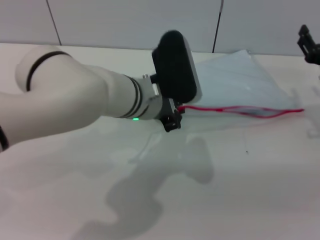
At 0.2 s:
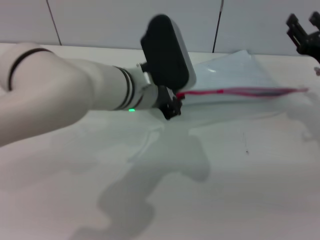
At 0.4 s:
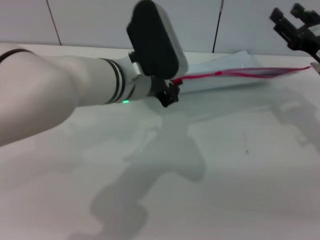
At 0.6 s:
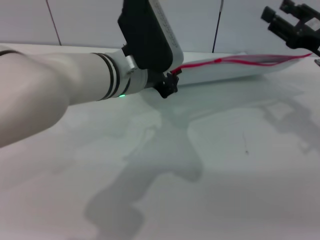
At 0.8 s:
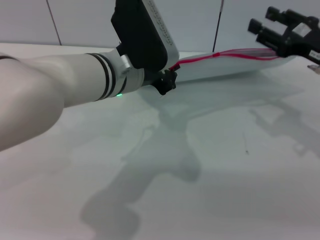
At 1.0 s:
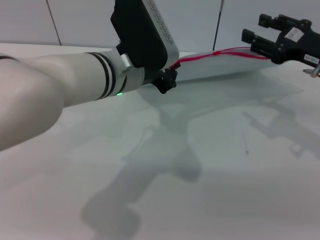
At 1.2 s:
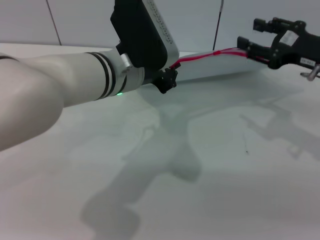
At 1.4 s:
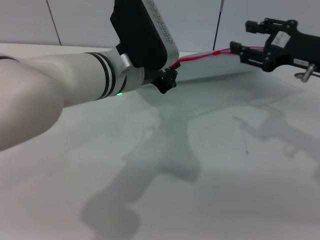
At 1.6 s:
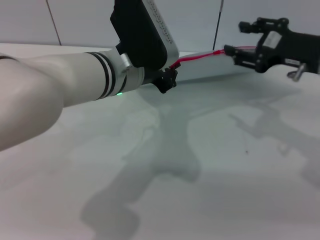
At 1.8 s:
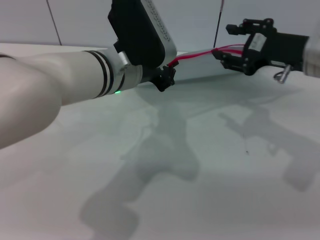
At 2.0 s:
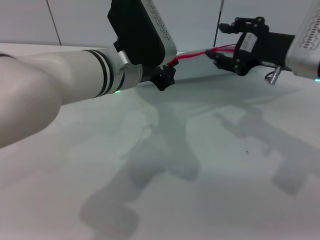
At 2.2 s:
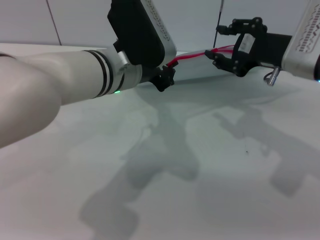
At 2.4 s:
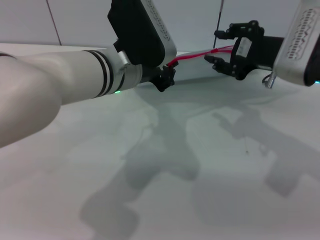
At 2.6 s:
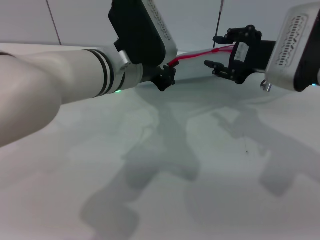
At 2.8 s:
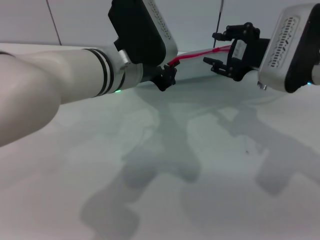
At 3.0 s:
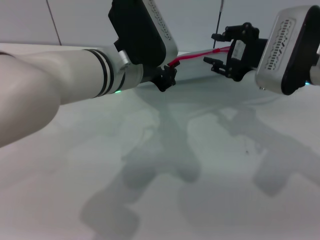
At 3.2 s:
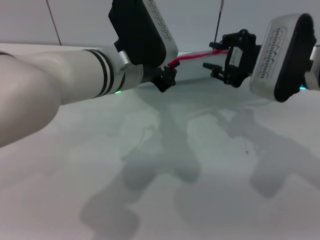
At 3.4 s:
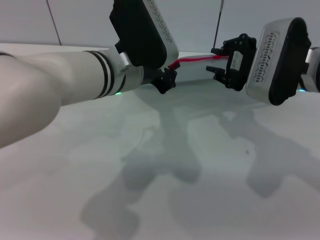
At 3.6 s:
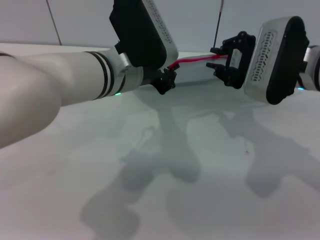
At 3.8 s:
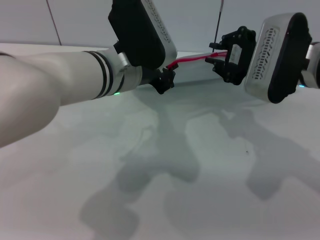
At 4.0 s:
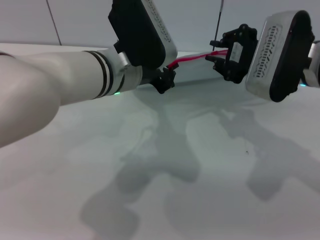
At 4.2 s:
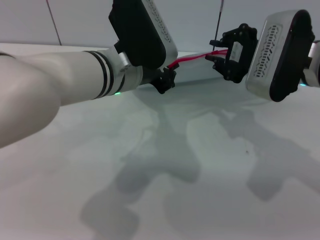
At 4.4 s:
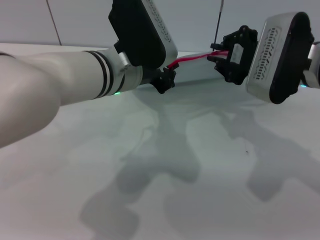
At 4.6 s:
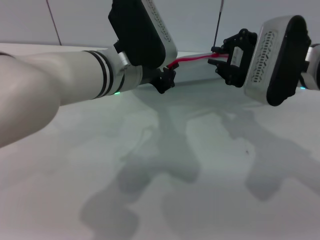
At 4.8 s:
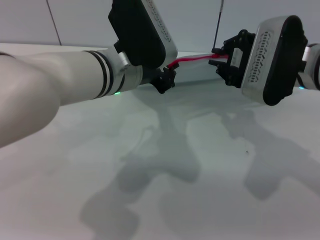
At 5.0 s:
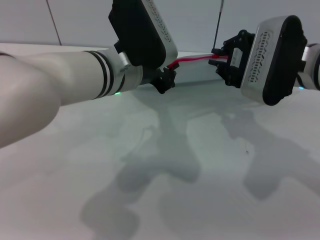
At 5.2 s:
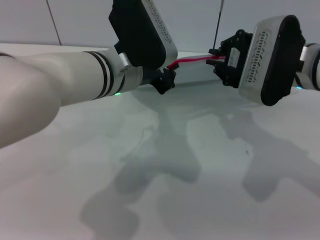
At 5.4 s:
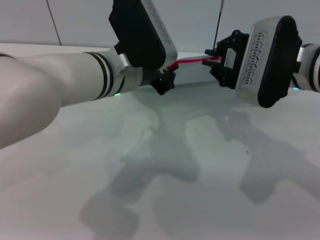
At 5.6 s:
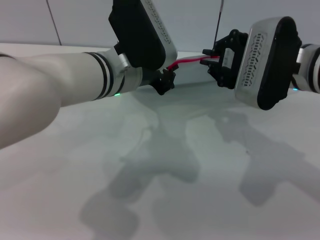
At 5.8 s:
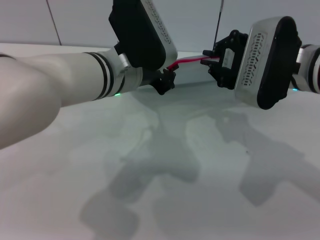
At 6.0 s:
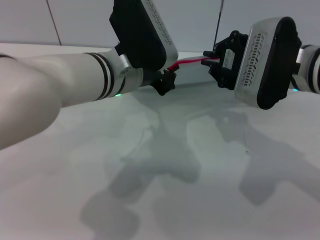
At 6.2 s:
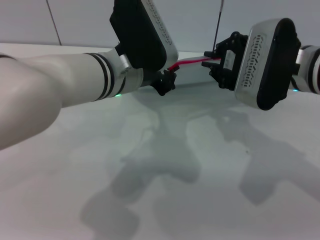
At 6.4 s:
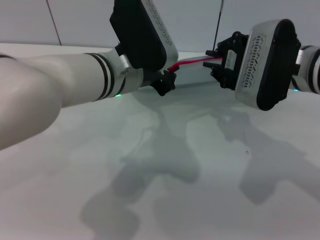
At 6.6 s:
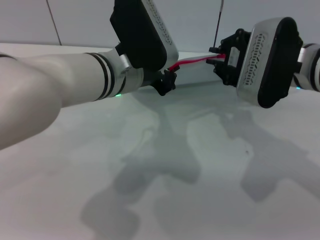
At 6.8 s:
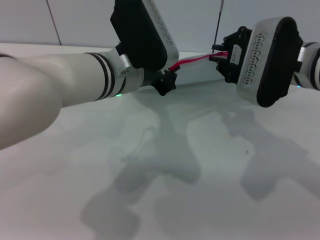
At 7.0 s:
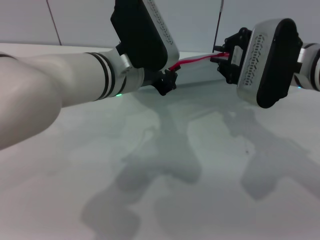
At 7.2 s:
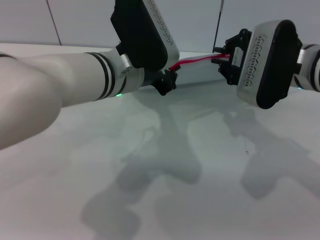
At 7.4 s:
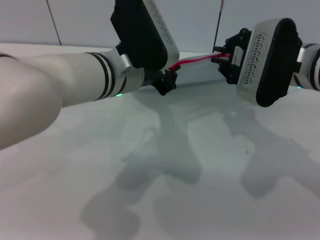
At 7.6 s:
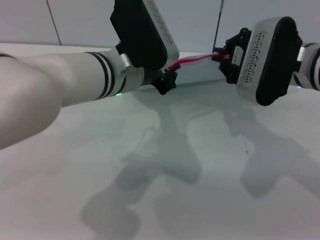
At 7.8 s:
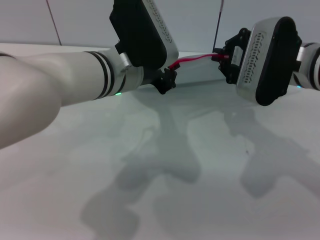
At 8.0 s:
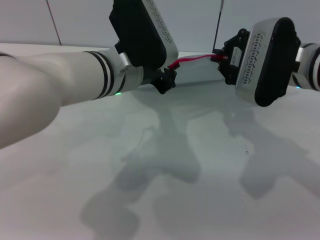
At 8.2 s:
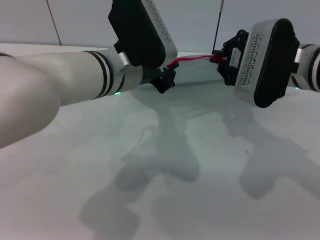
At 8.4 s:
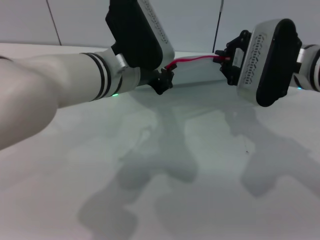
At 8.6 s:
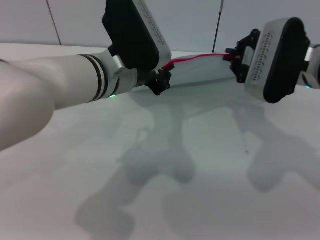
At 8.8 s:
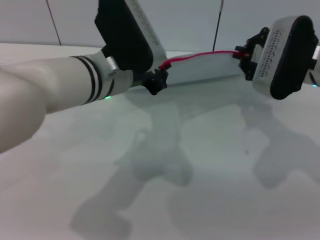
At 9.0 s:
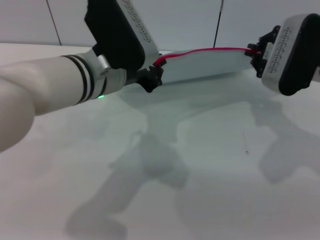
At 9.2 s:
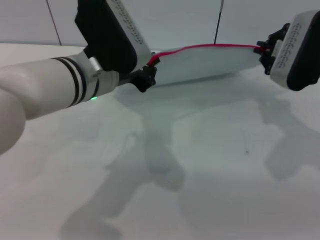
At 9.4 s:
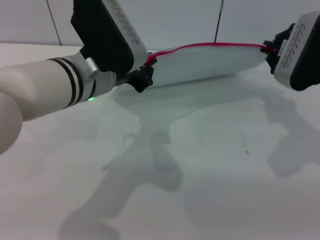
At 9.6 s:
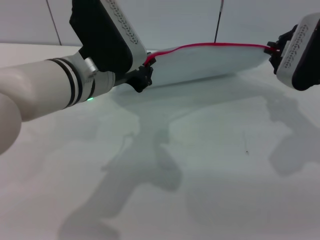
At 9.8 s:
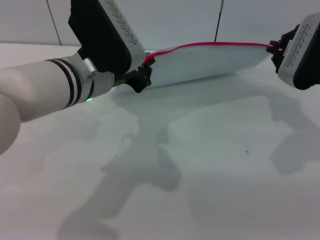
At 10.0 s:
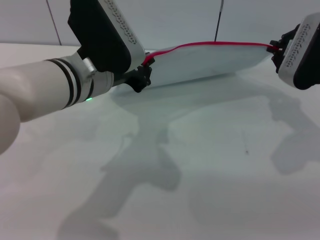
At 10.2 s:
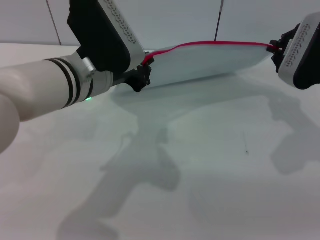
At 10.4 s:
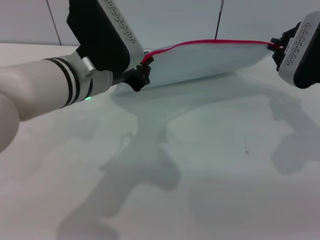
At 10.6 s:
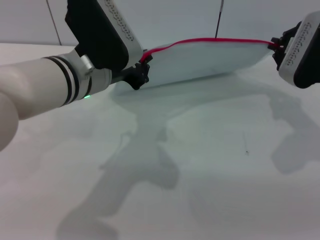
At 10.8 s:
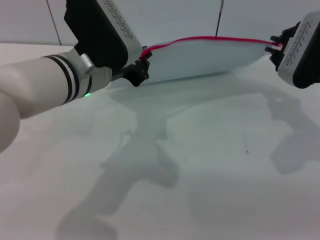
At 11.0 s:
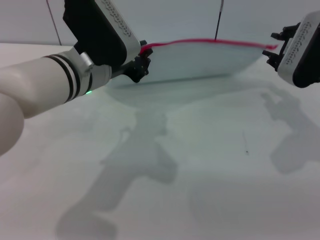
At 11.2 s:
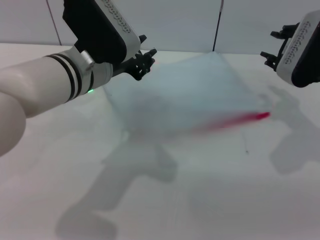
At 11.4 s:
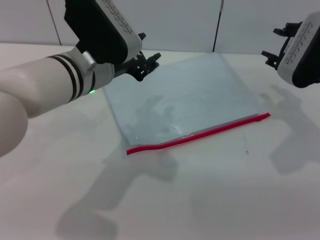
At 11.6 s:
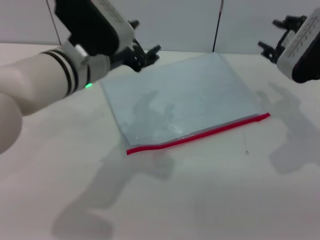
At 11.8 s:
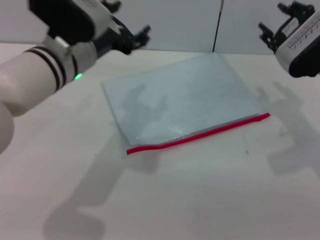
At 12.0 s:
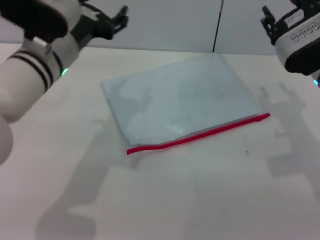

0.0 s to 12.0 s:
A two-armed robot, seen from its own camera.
Step, 1.0 to 10.8 s: Pulling up the zipper on the transparent plastic bag with the right gripper to close it.
Step, 11.0 to 11.6 s: Place the transparent plastic bag.
0.0 to 1.6 s: The right gripper goes about 10 cm upward. Meanwhile the left gripper shifts by approximately 5 cm.
1.6 to 3.0 s: The right gripper shifts approximately 5 cm to the left.
3.0 to 4.4 s: The right gripper closes its fingers.
4.4 to 6.0 s: The grippers move only a little.
6.0 to 7.6 s: Both grippers stay about where they are.
9.0 to 10.4 s: The grippers move only a little.
10.4 to 12.0 s: The right gripper opens up. The left gripper ends up about 5 cm from where it was, and opens.

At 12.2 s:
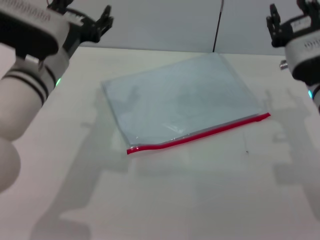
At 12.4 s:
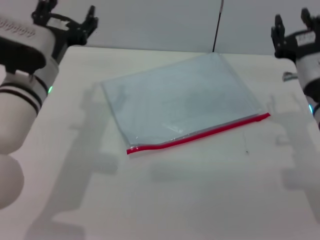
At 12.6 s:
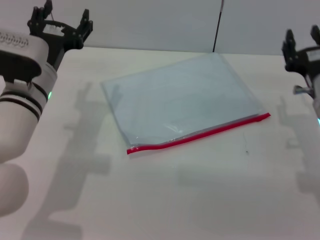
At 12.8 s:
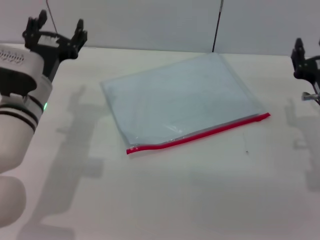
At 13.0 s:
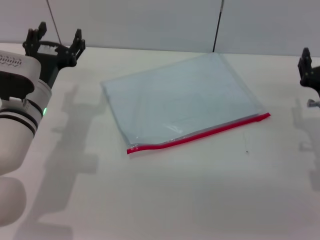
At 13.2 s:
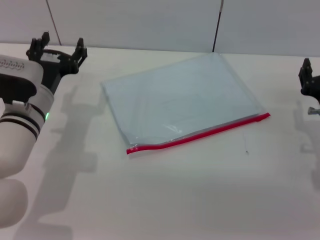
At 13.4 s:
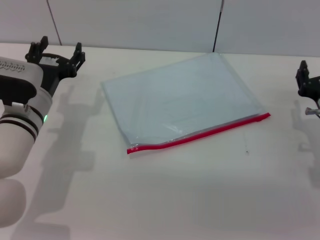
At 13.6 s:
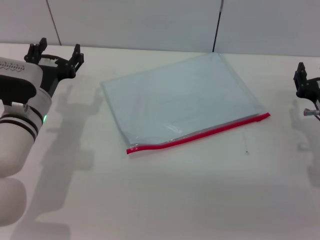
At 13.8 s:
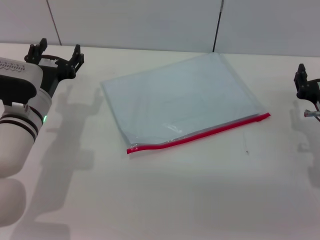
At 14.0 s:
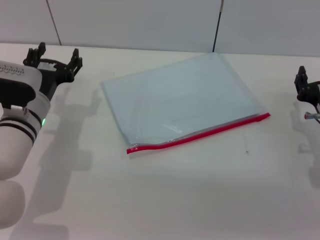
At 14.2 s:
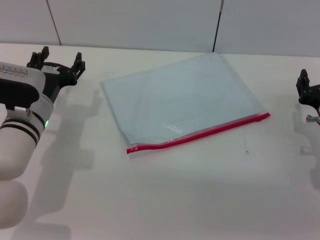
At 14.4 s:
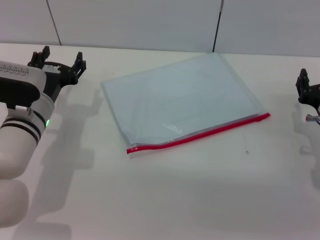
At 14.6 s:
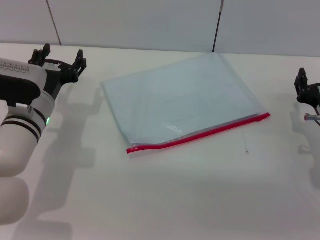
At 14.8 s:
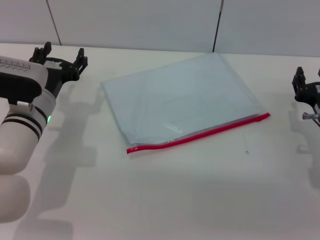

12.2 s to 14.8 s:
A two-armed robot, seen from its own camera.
12.2 to 13.4 s: The right gripper moves downward and to the right, some 10 cm. Meanwhile the left gripper moves downward, approximately 10 cm.
13.4 to 14.8 s: The two grippers keep their place.

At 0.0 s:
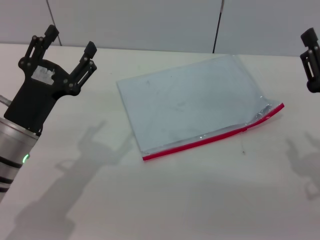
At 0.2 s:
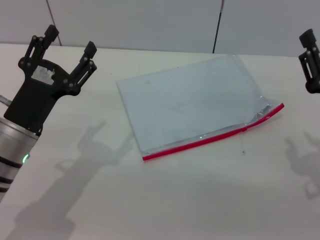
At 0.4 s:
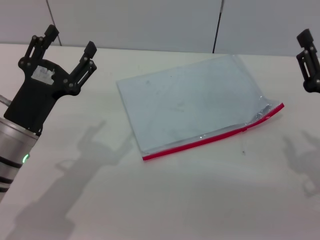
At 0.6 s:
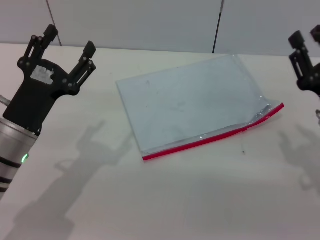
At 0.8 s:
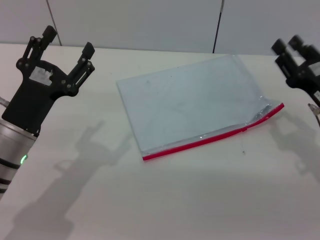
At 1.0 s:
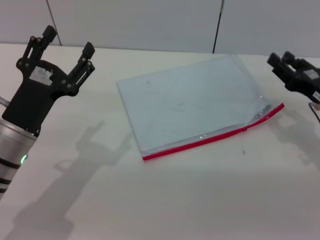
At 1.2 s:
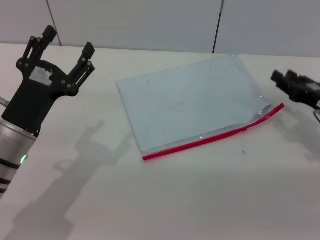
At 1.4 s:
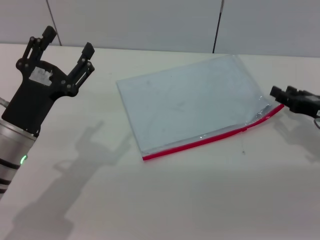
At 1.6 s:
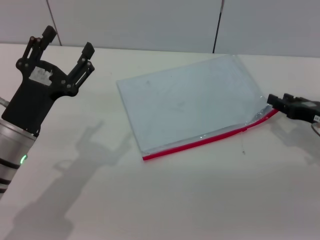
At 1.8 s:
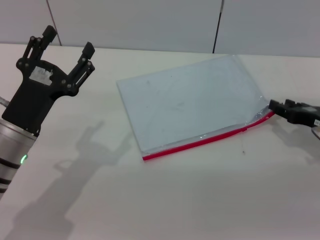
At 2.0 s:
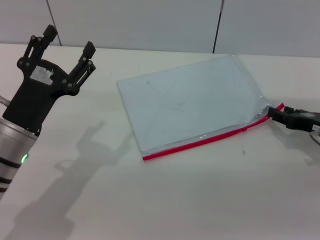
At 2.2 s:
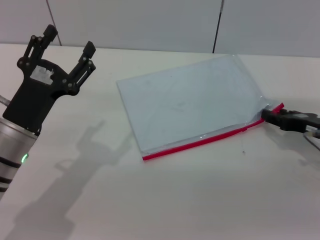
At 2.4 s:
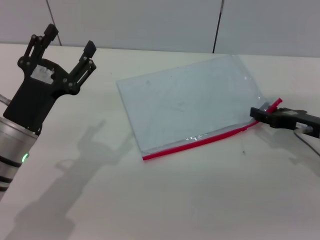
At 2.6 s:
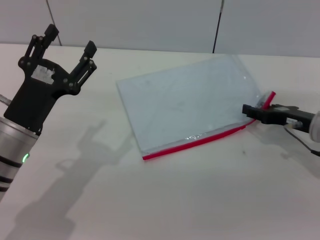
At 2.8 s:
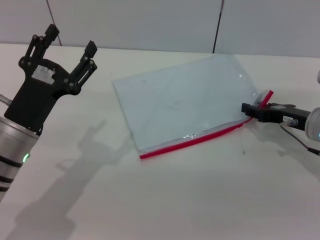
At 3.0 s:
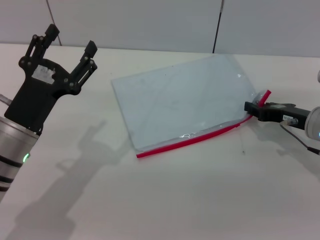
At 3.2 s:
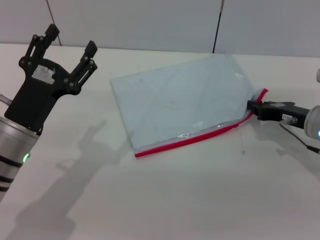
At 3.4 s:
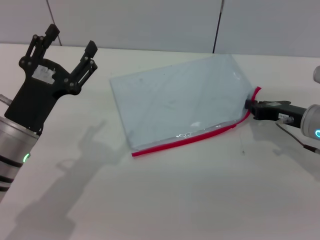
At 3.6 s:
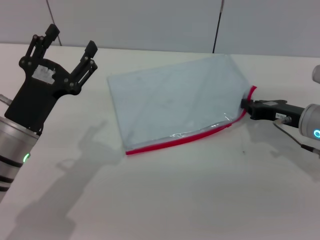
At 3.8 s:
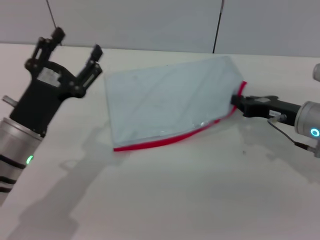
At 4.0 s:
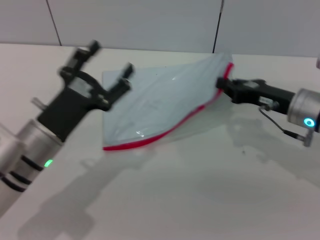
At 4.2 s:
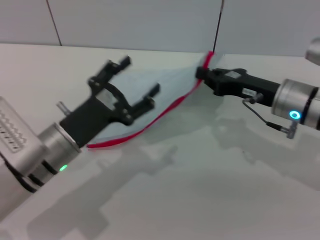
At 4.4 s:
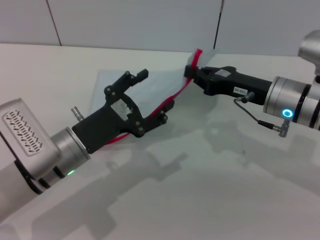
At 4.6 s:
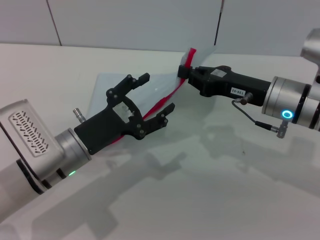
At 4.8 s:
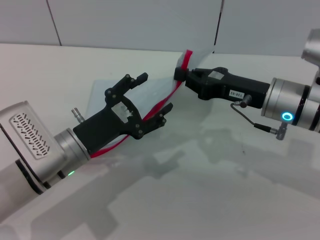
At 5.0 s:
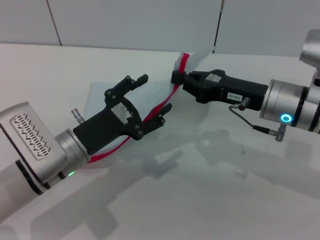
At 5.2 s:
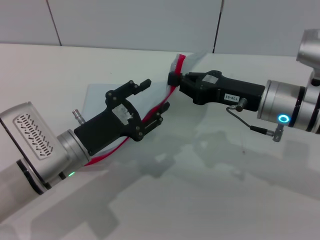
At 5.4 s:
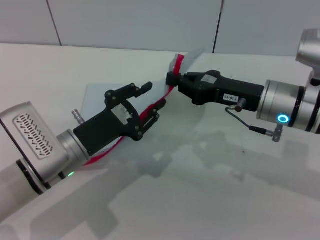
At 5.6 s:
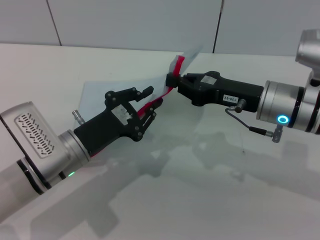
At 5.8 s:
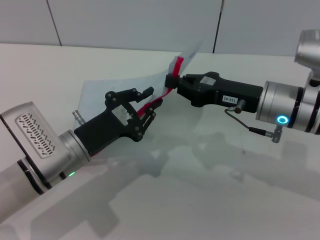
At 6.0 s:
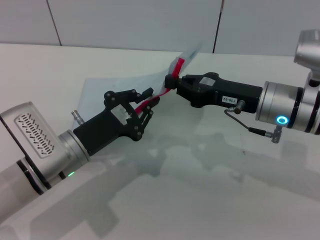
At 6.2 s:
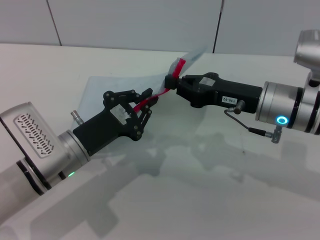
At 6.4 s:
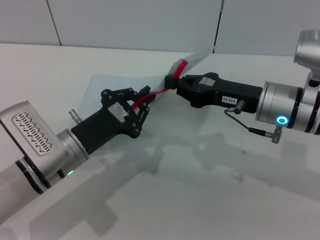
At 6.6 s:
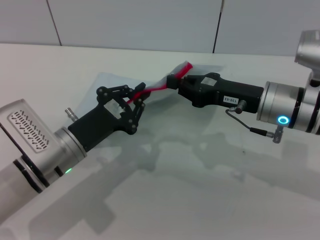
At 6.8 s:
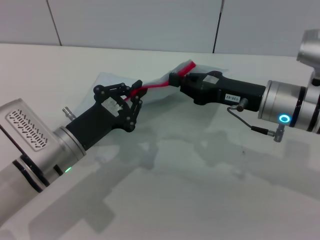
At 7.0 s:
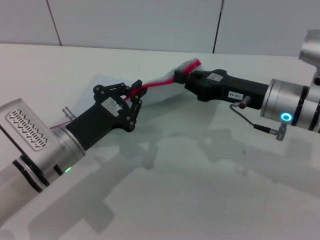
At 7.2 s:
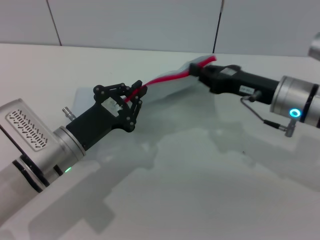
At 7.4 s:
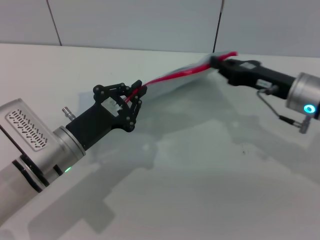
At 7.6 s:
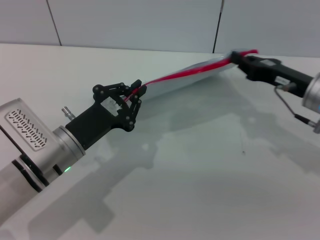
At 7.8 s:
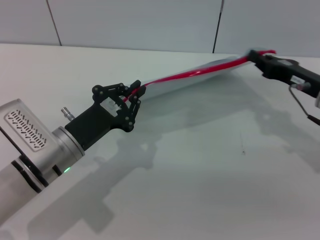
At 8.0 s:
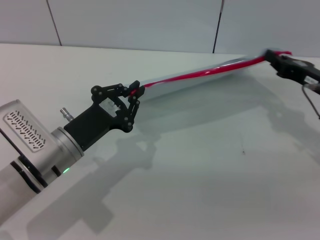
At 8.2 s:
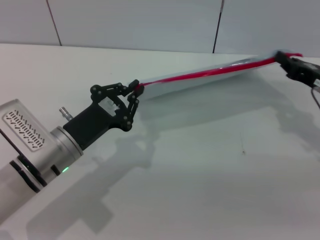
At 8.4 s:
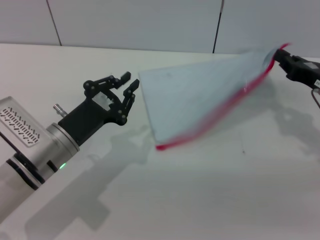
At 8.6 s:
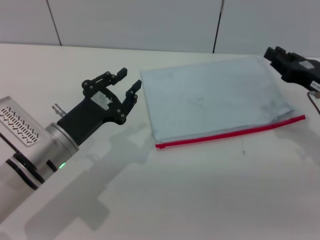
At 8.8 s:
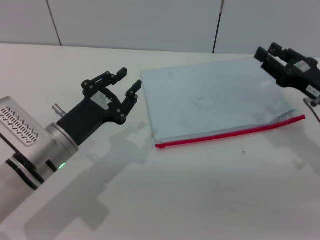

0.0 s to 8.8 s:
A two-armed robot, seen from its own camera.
Step, 0.0 to 4.2 s: Pick up the transparent plastic bag with the right gripper.
0.0 to 1.4 s: The right gripper goes about 10 cm forward and to the right.
1.4 to 3.0 s: The right gripper changes place by roughly 5 cm.
3.0 to 4.4 s: The right gripper is displaced to the left and upward by some 10 cm, and closes. The left gripper shifts by approximately 5 cm.
4.4 to 5.8 s: The left gripper closes.
5.8 to 7.4 s: The right gripper goes some 5 cm to the right.
7.4 to 8.8 s: The left gripper opens its fingers; the right gripper travels to the right by roughly 5 cm, and opens.
